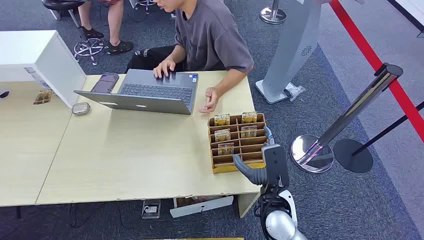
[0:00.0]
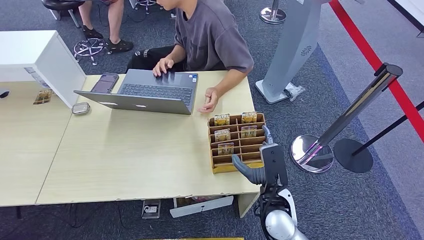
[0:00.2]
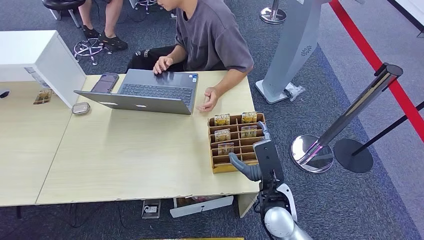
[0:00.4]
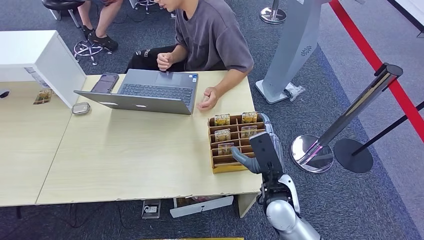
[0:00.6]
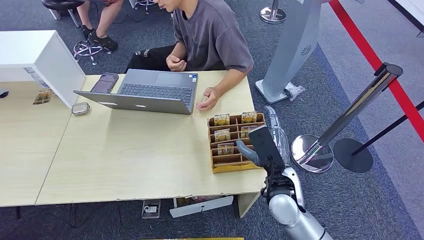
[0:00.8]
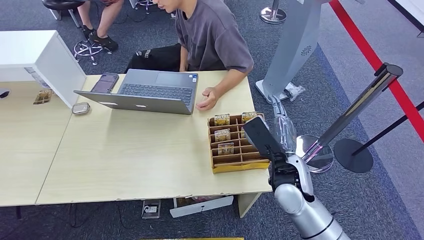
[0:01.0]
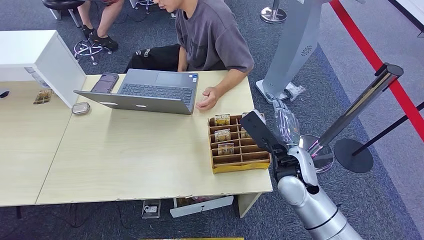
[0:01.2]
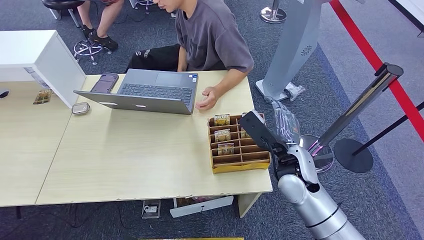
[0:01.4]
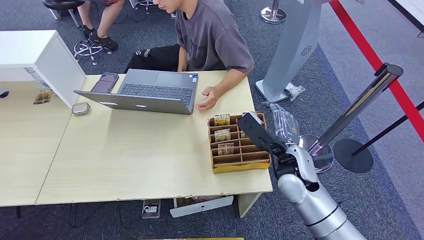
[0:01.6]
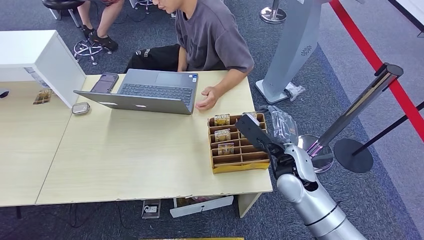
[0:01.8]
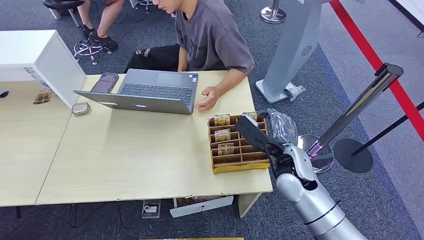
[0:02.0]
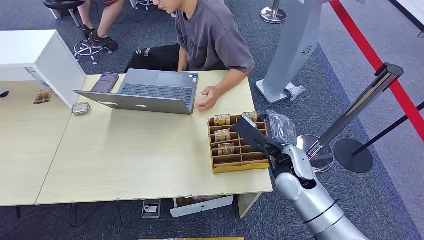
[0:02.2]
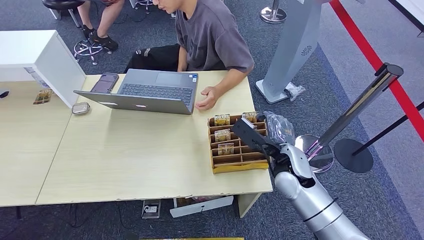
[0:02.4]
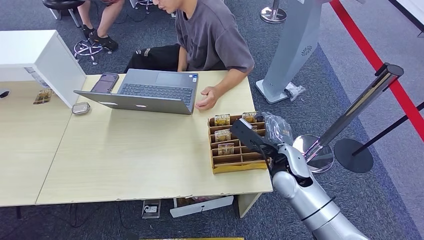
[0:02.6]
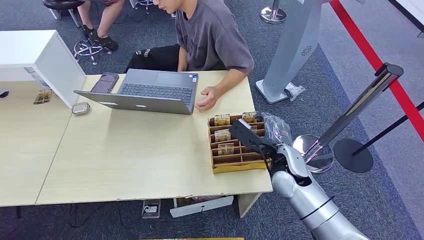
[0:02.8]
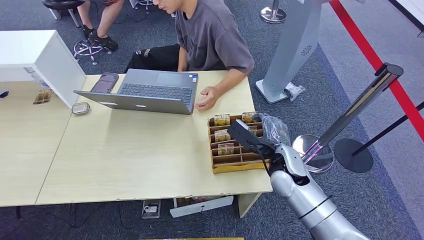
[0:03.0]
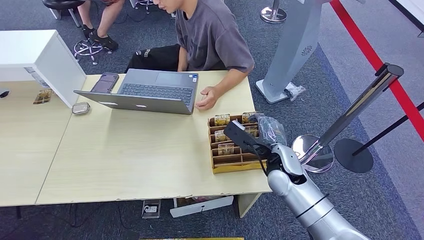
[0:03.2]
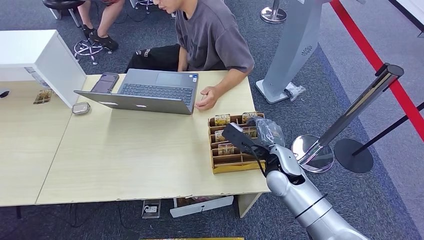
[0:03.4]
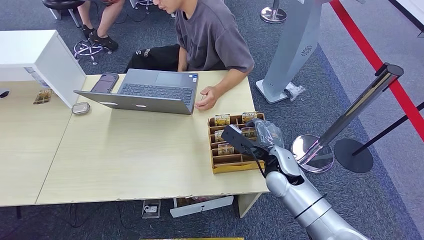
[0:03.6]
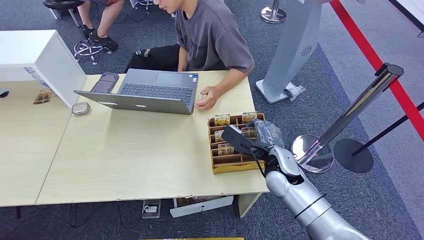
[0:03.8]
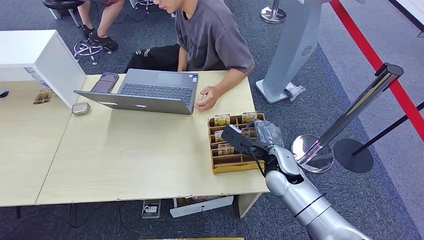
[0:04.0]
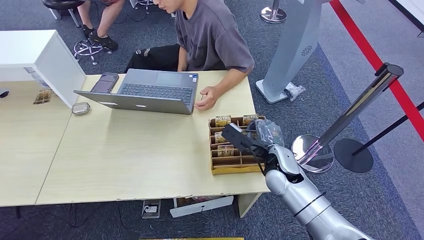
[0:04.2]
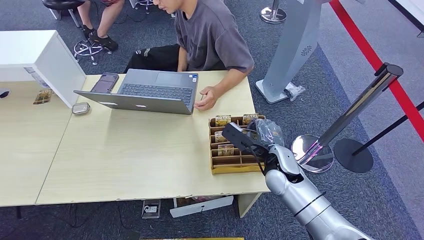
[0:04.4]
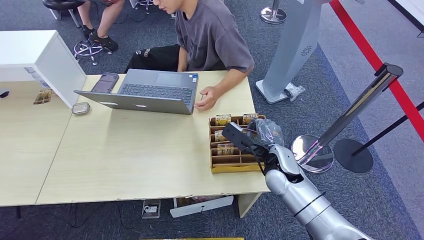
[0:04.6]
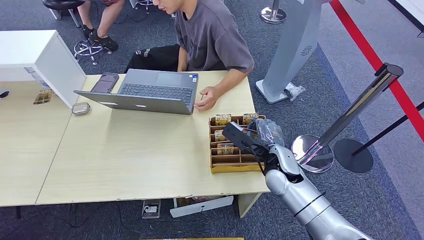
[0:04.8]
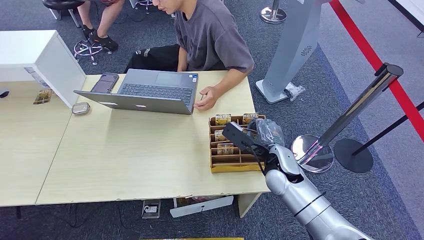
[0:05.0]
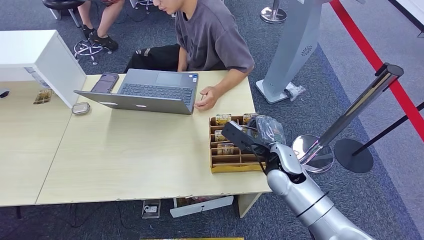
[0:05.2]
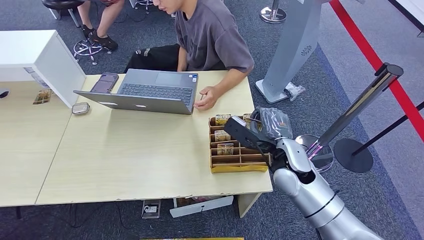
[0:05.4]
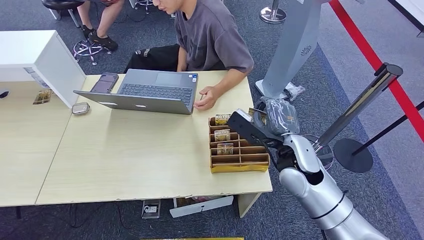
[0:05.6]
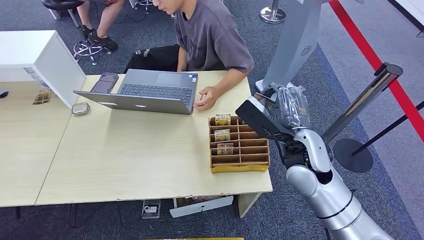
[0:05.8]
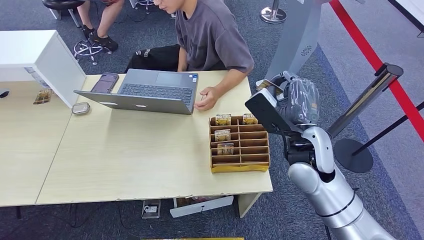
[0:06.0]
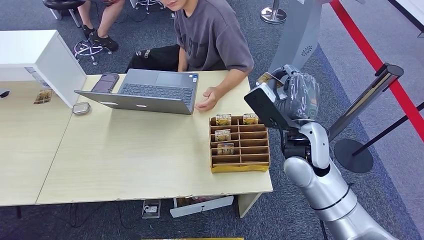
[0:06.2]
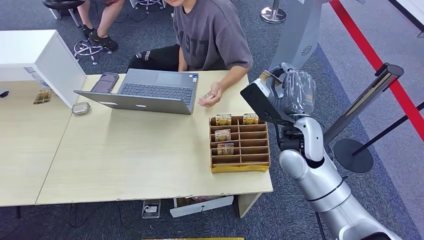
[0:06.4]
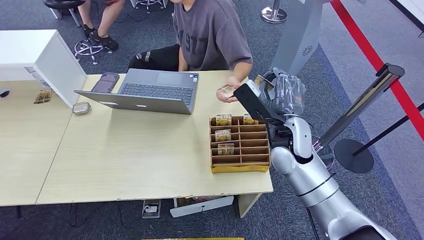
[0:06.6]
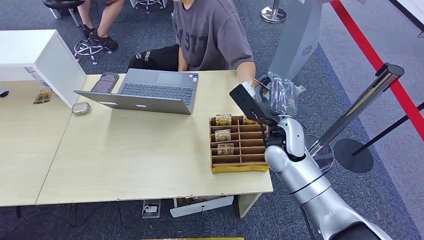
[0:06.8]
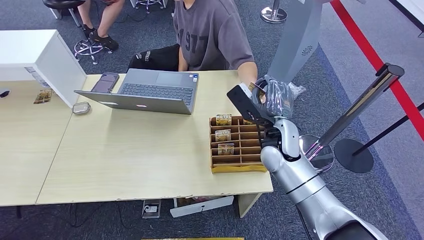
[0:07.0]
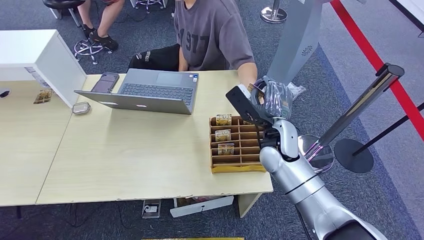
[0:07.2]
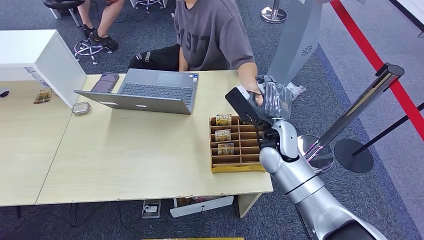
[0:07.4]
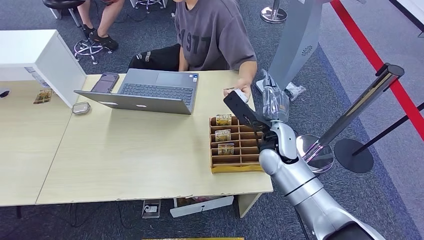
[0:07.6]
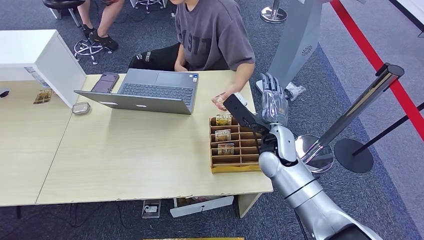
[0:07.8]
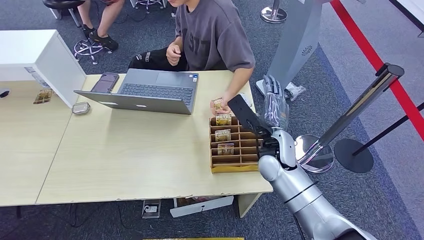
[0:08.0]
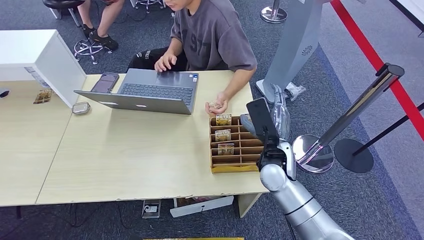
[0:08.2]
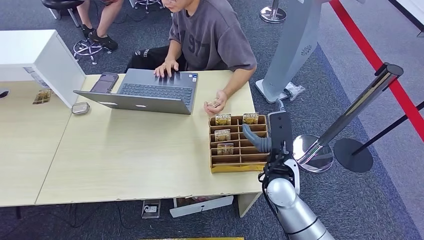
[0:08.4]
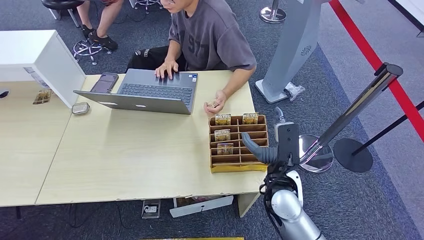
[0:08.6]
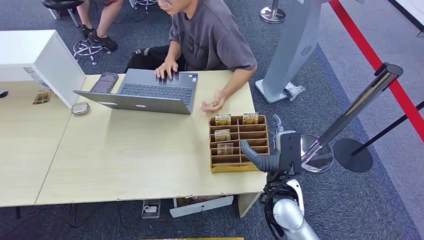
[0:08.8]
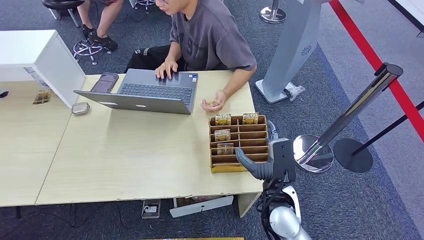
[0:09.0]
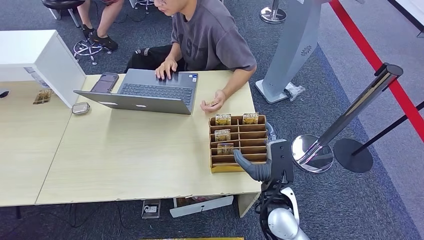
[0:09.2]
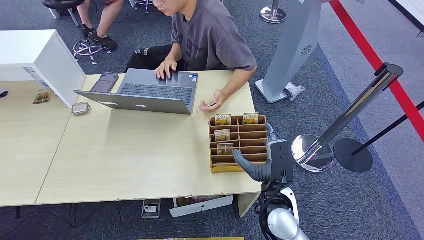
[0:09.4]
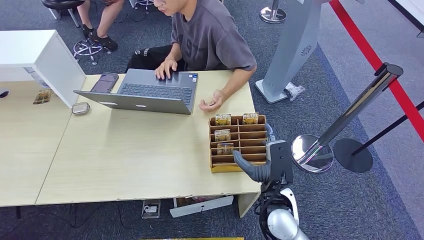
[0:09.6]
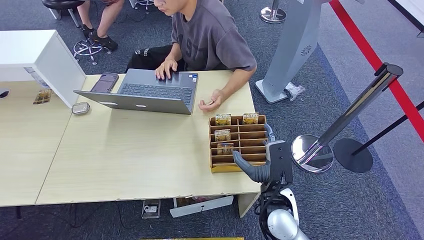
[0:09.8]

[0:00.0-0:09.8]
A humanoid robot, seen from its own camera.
Task of the whole recording: Pick up the card and hand it over to the target person.
Step, 0:00.0 to 0:07.2: Pick up the key card from the card box.
Step, 0:07.4 to 0:09.8: Hand the key card to the target.
0:01.4 to 0:02.8: The hands stay close to where they were, moving slightly.
0:02.8 to 0:04.2: The two hands keep their place.
0:04.2 to 0:05.6: The right hand shifts roughly 15 cm upward.
0:05.6 to 0:07.0: The right hand goes some 15 cm forward, downward and to the left.
0:07.0 to 0:08.4: The right hand heads backward, covering about 15 cm.
0:08.4 to 0:09.8: The right hand ends up some 5 cm from where it was.
